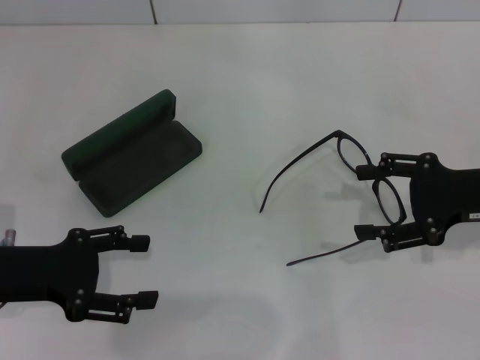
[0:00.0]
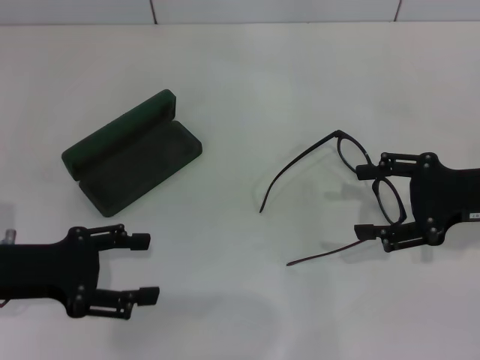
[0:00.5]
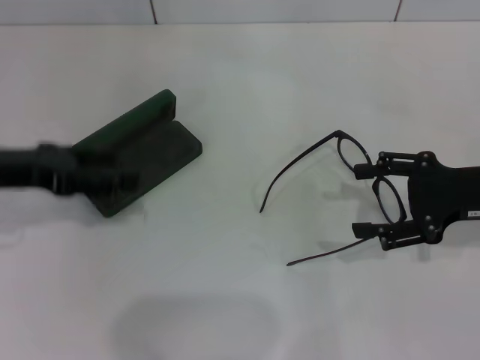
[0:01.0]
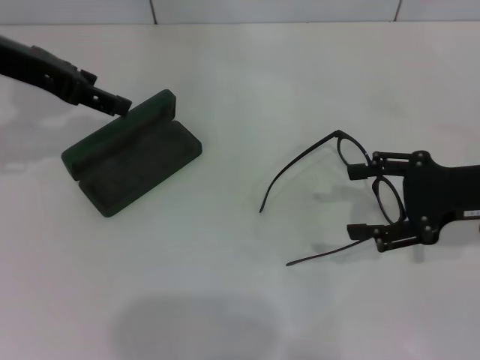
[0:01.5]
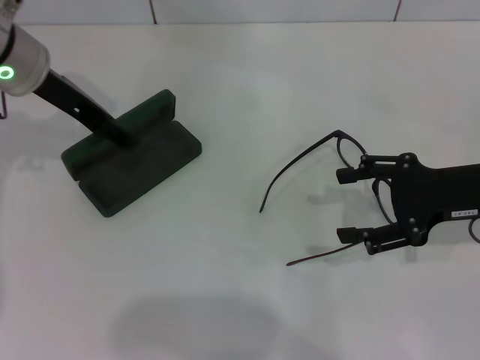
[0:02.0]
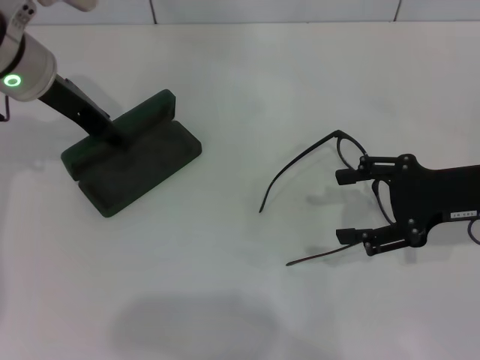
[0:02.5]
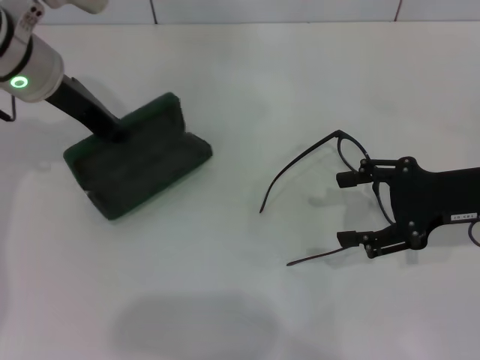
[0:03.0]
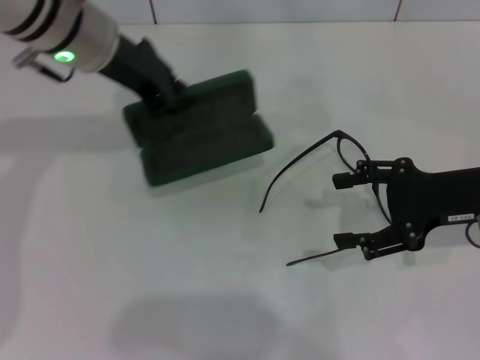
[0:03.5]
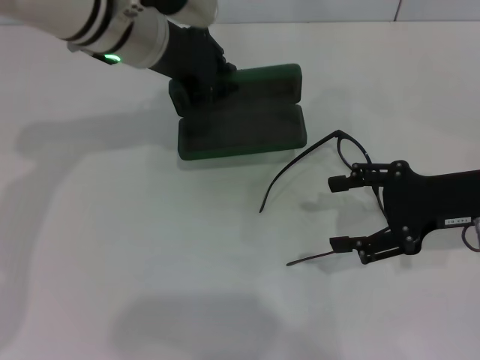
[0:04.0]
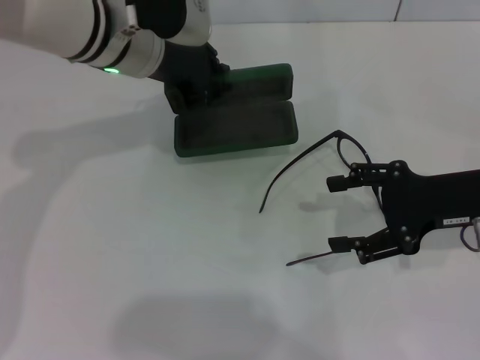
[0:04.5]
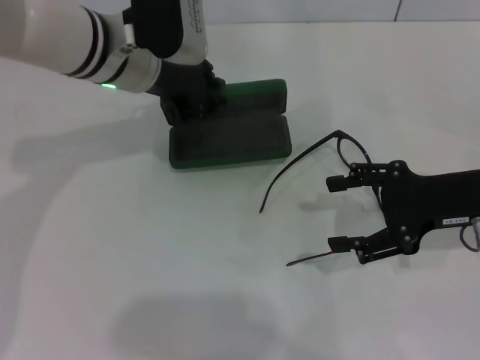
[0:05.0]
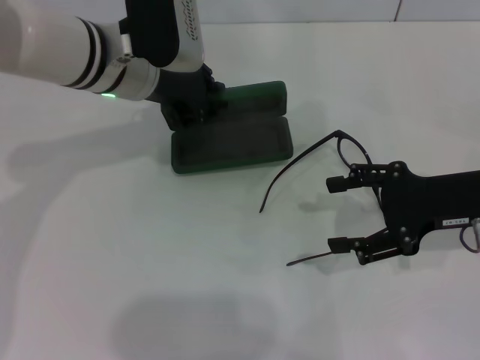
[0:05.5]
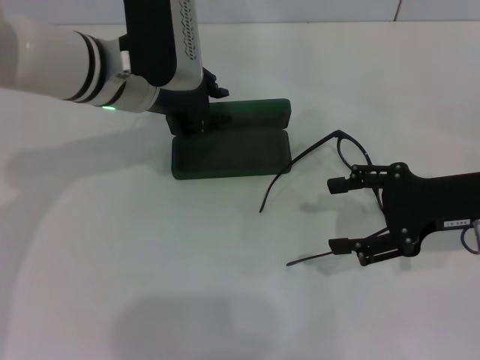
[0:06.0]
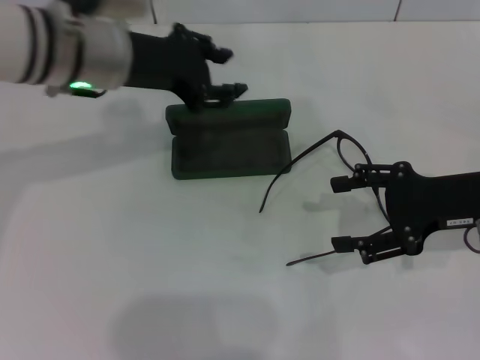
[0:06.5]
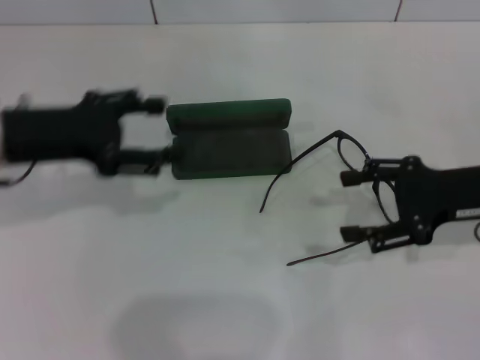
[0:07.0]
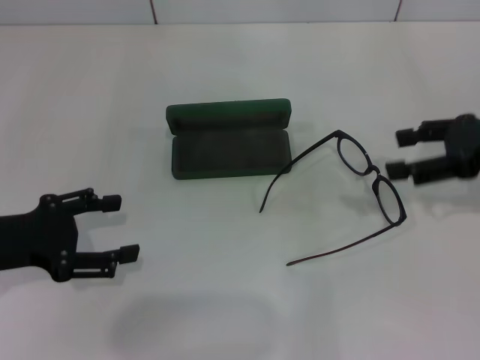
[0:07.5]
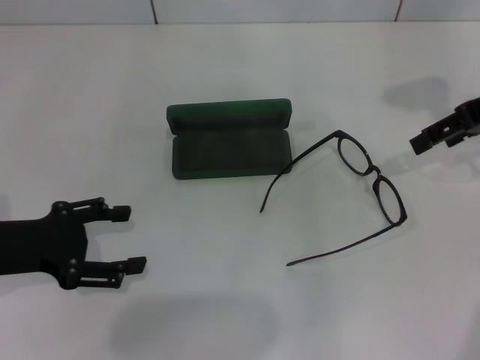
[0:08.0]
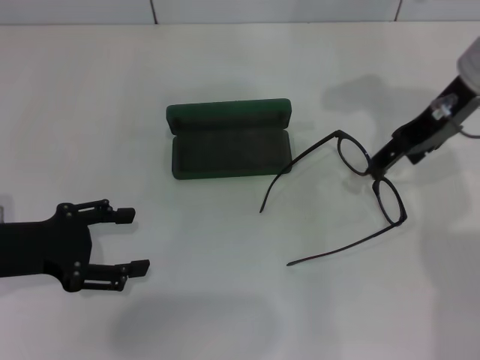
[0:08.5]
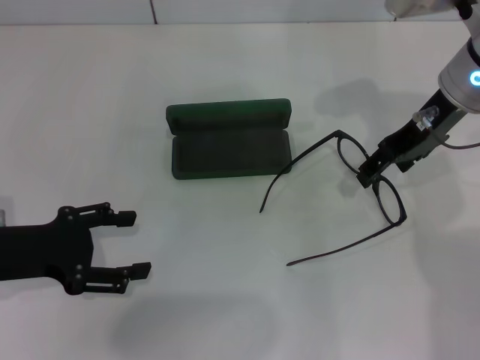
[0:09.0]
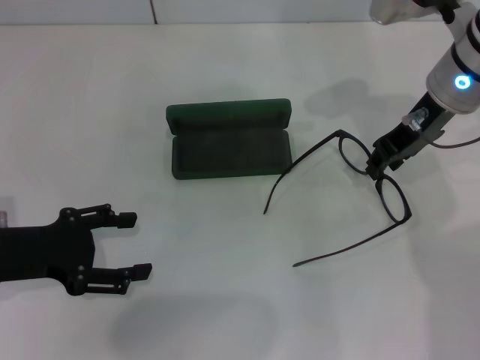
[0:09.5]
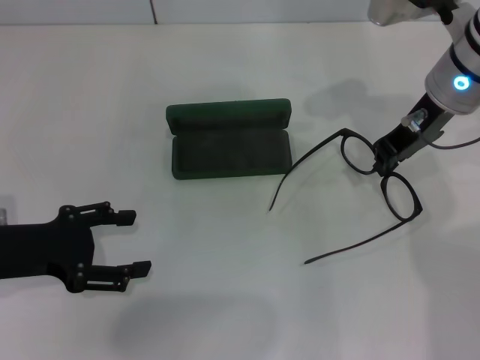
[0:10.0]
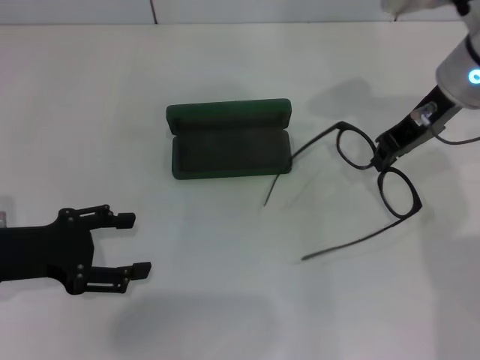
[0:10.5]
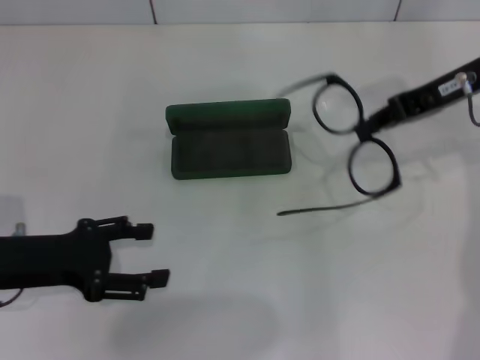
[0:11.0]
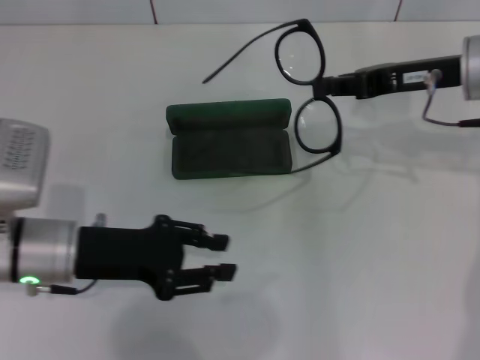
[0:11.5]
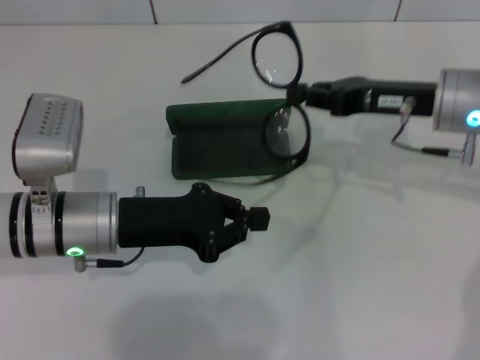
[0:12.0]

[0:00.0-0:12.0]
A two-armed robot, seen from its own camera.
Step, 0:00.0 to 0:02.5: Grab the glasses case with your left hand.
Step, 0:03.0 to 0:06.0: Place the glasses case in the center of the table with your left hand.
Step, 0:06.5 to 0:10.0: Grab the eyeglass frame with your right hand.
0:00.0 to 0:02.0: The left gripper goes approximately 20 cm forward, upward and to the right.
0:02.0 to 0:04.0: The left gripper moves to the right, approximately 10 cm, and closes.
0:04.0 to 0:06.0: The left gripper changes place by about 5 cm.
0:06.0 to 0:08.0: The right gripper travels upward and forward by some 15 cm. The left gripper moves to the left and backward, approximately 20 cm, and opens its fingers.
0:08.0 to 0:10.0: The right gripper is displaced to the left by some 10 cm, and closes up.
0:10.0 to 0:12.0: The left gripper goes approximately 10 cm to the right, and closes; the right gripper ends up some 5 cm from where it was.

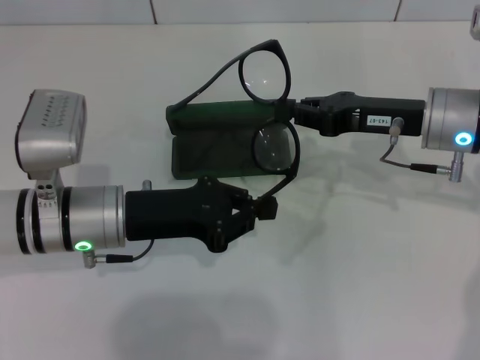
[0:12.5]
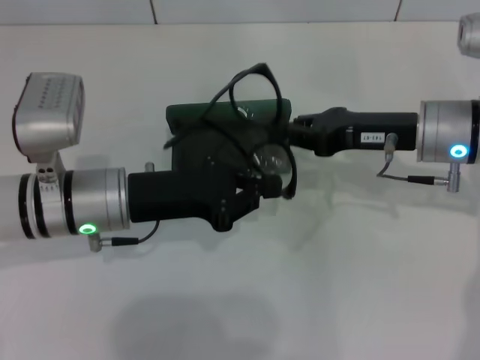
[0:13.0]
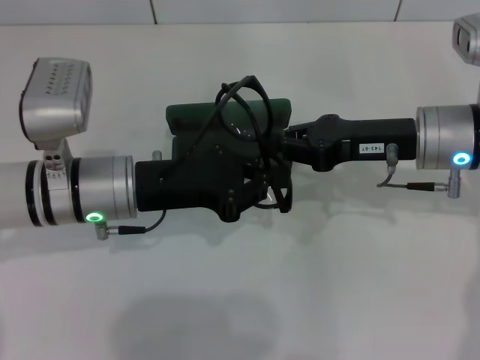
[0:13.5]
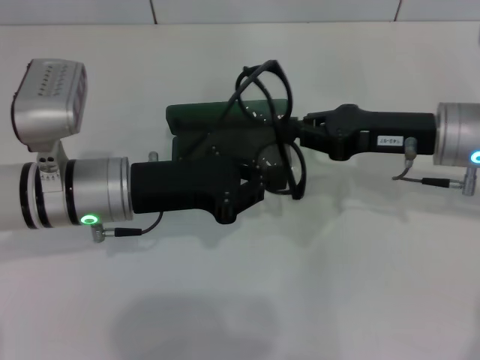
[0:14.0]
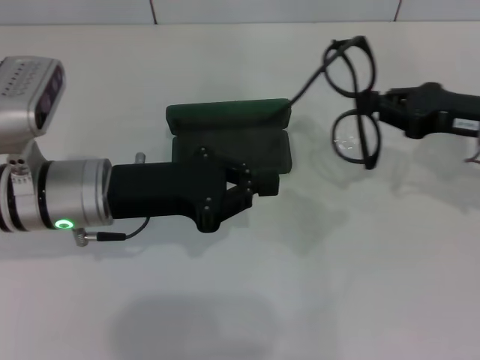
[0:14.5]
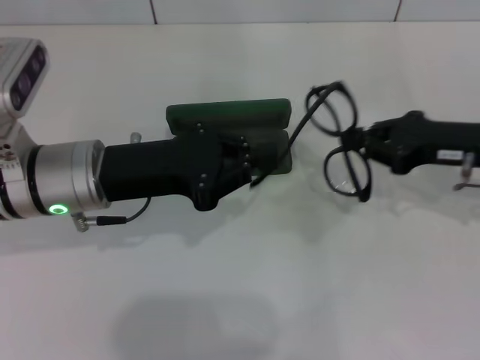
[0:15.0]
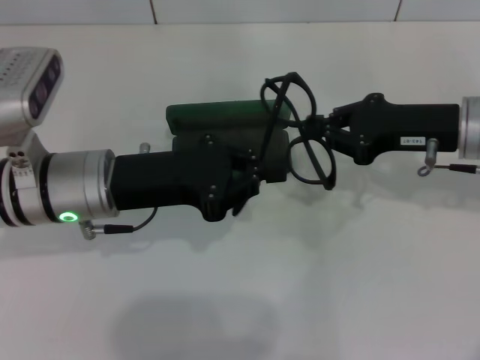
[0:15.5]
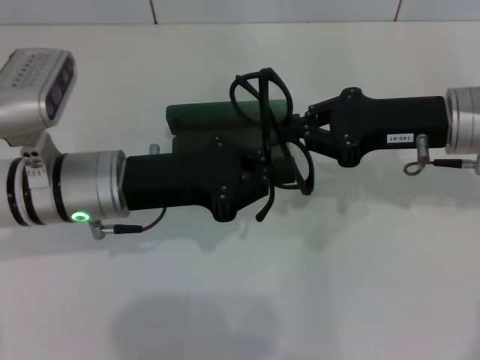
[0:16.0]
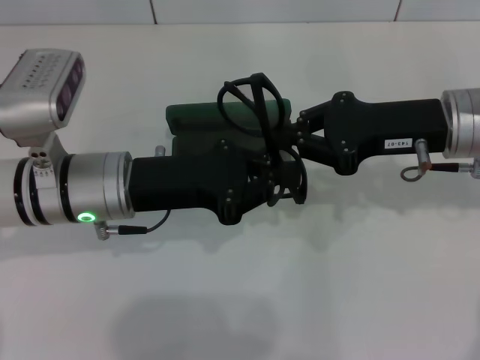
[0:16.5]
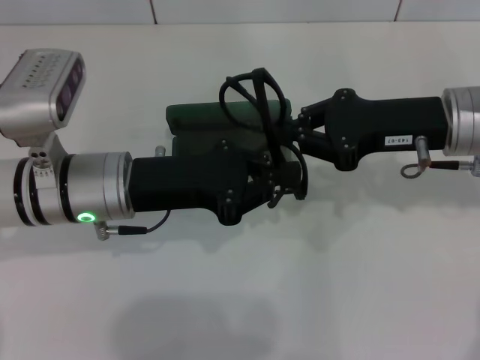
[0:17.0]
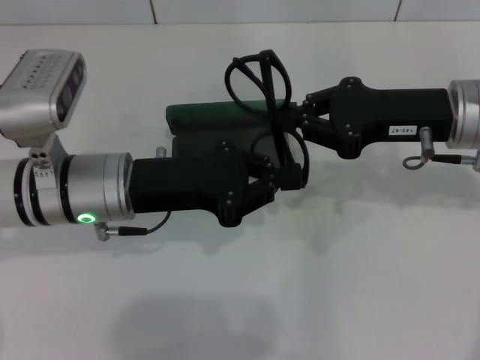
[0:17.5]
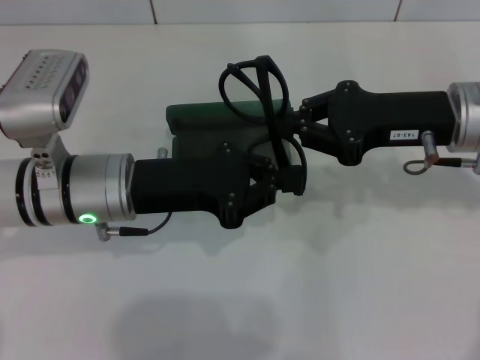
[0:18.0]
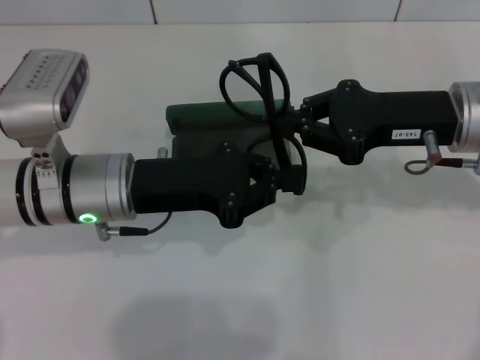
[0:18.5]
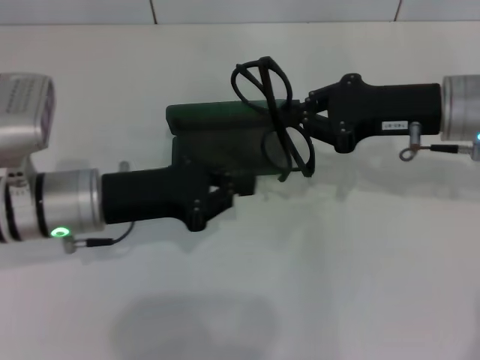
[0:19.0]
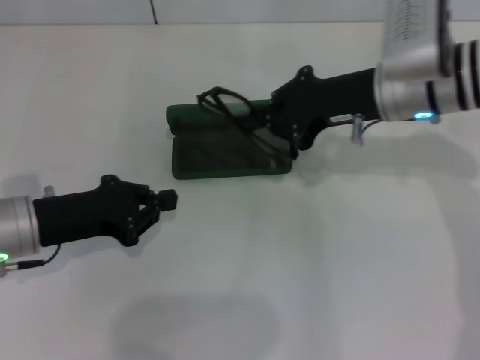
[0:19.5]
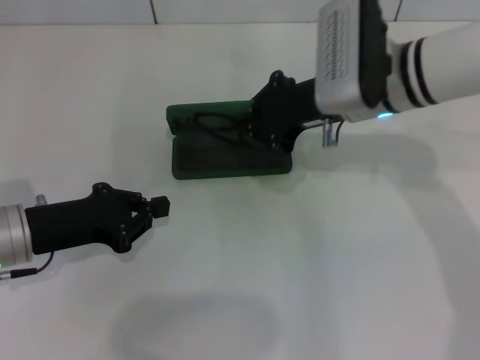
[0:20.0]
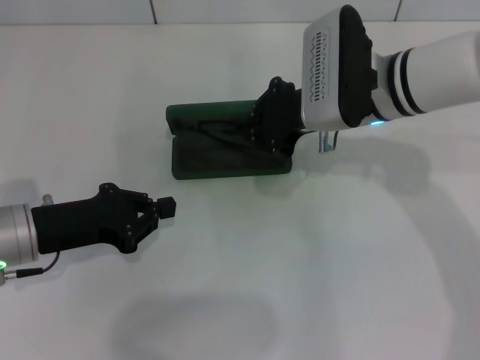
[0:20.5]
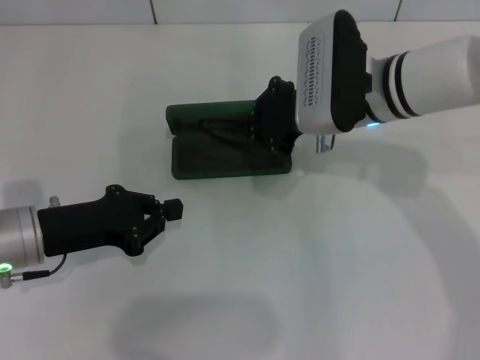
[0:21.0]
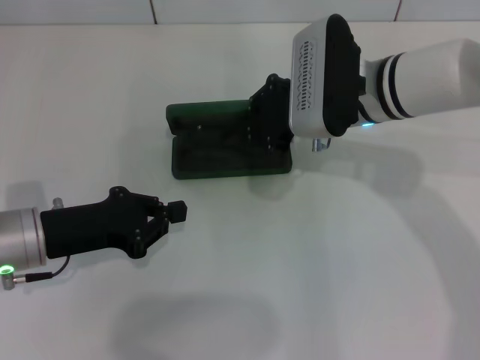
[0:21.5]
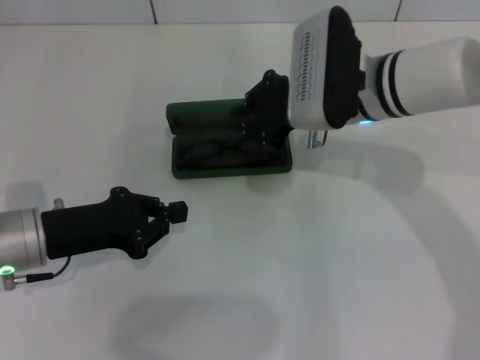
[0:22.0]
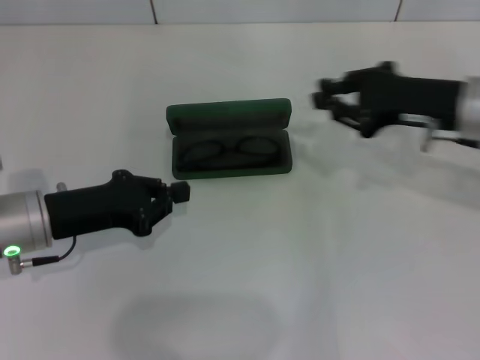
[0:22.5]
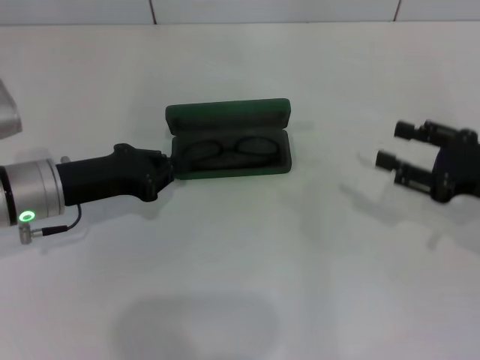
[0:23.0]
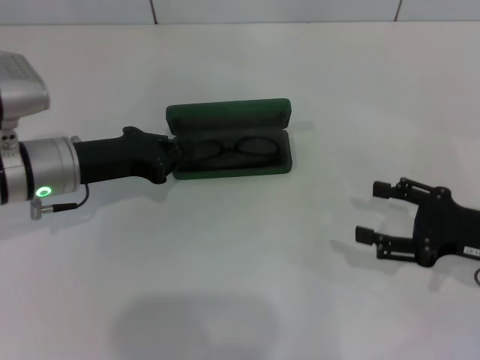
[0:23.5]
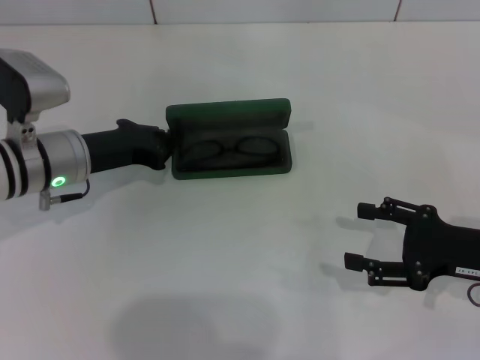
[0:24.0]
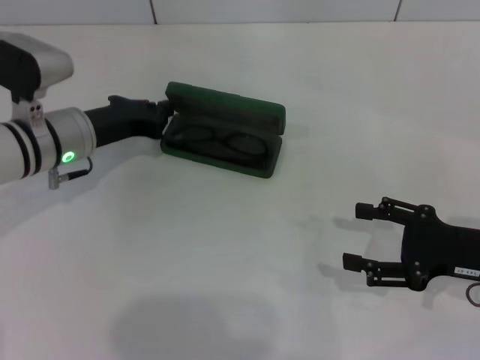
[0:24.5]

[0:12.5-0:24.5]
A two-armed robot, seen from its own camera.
Step, 0:12.5 to 0:16.5: Fold the frame with your left hand.
Step, 0:17.5 to 0:21.5: Put the glasses into the case with your right hand.
0:12.5 to 0:14.5: The right gripper shifts about 10 cm to the right.
0:14.5 to 0:16.5: The right gripper travels to the left by about 10 cm.
0:16.5 to 0:18.5: Both grippers stay put.
0:18.5 to 0:20.5: The right gripper travels to the left and forward by approximately 10 cm, while the left gripper goes some 10 cm to the left.
0:20.5 to 0:22.5: The right gripper moves to the right, approximately 10 cm.
0:22.5 to 0:24.5: The right gripper is displaced backward, downward and to the right by about 15 cm, and opens up; the left gripper shifts some 10 cm forward.

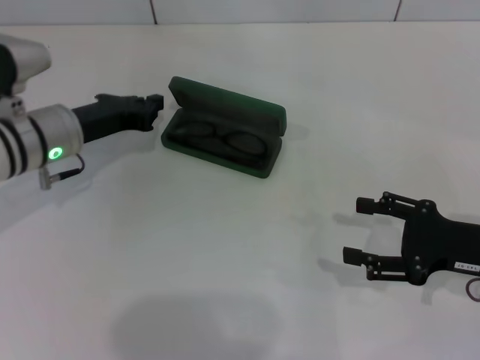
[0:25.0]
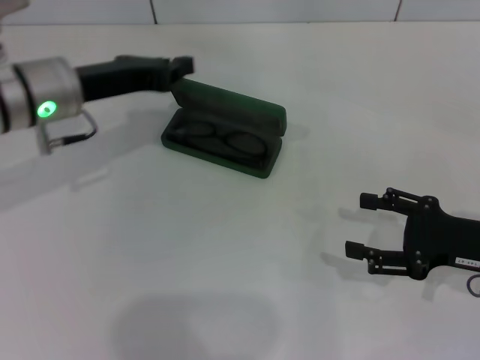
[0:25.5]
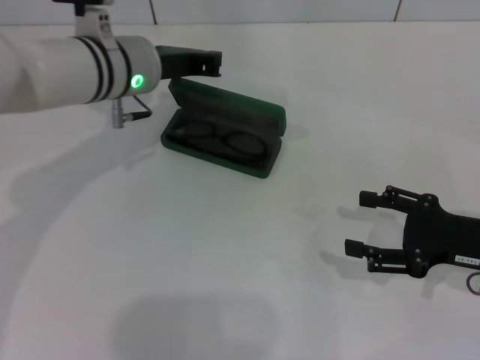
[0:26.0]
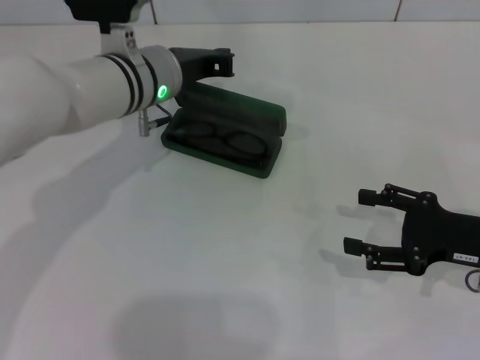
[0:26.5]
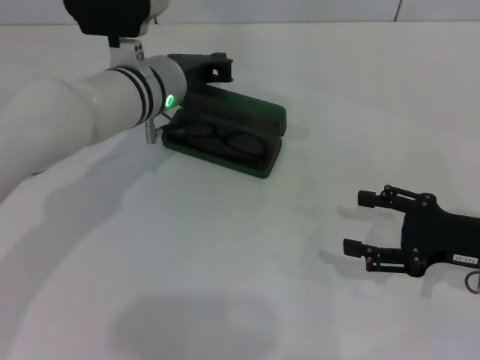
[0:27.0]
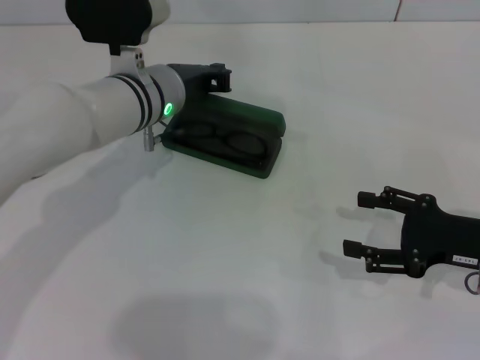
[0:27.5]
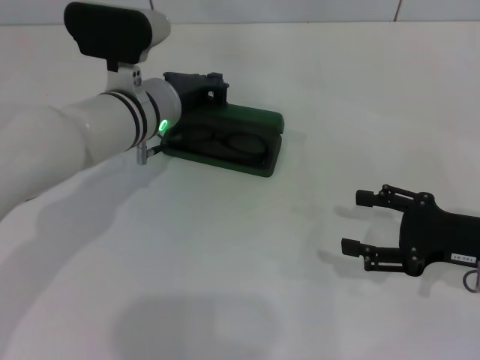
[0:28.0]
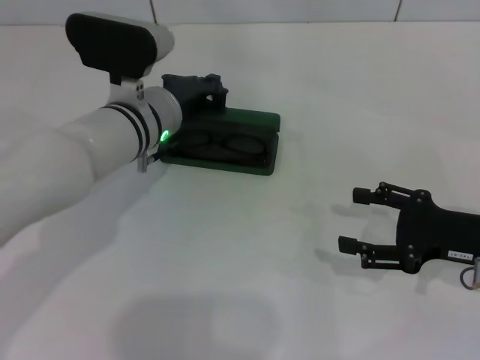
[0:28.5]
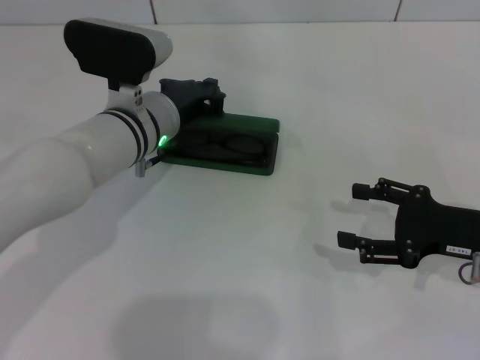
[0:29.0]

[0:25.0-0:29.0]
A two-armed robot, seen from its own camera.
0:25.0 to 0:27.0: The left gripper goes roughly 10 cm to the right.
0:27.0 to 0:29.0: The grippers move only a little.
